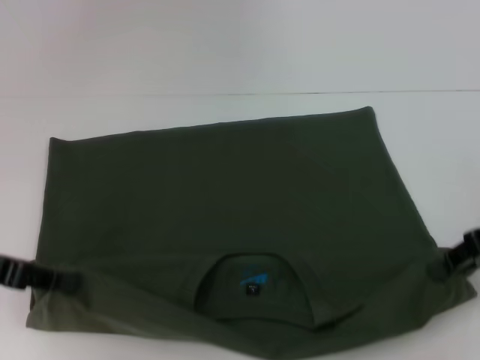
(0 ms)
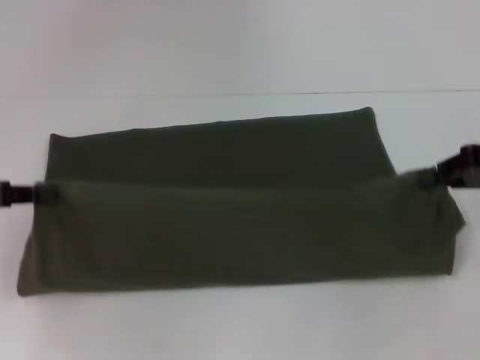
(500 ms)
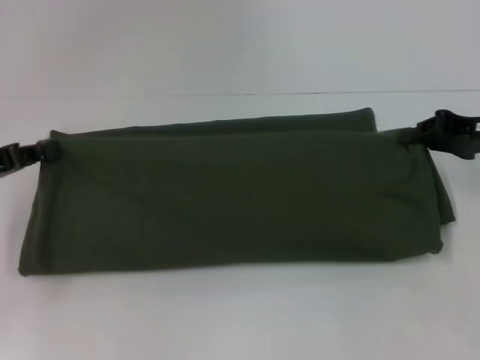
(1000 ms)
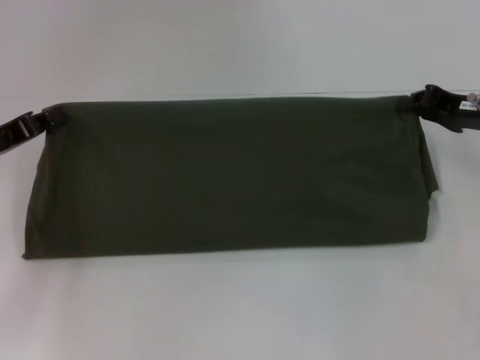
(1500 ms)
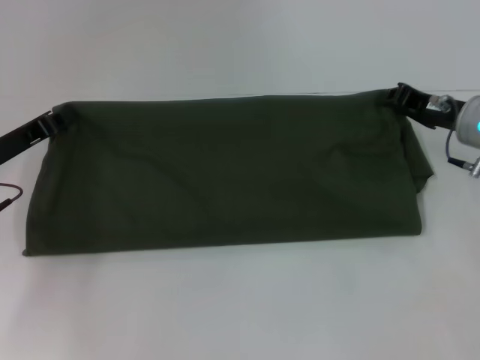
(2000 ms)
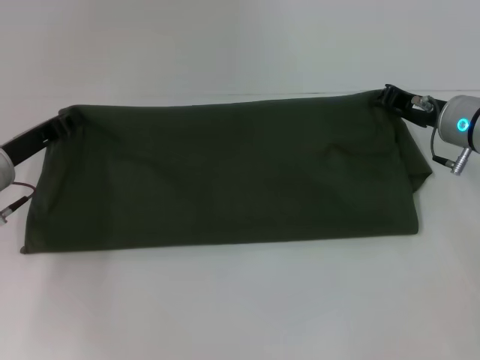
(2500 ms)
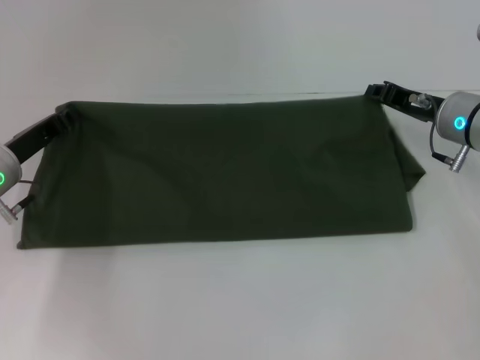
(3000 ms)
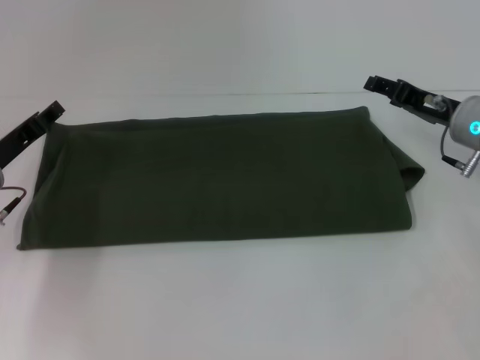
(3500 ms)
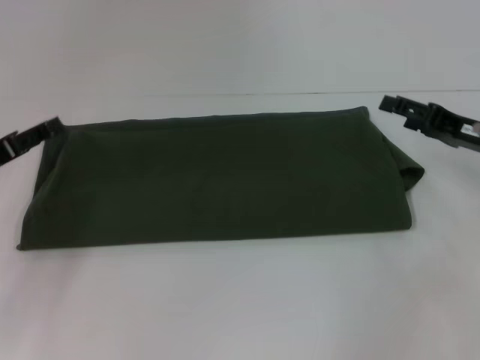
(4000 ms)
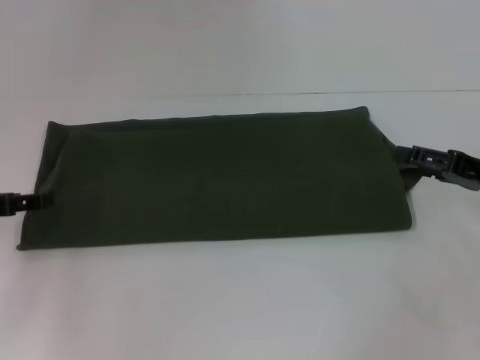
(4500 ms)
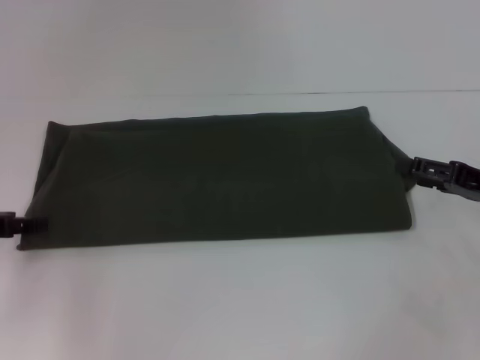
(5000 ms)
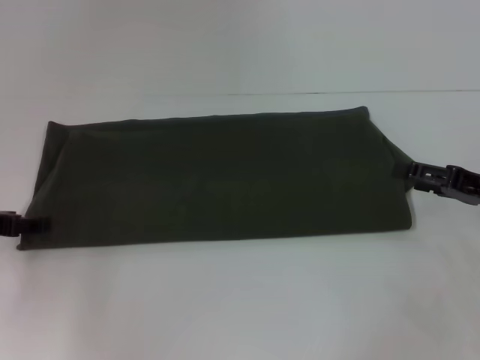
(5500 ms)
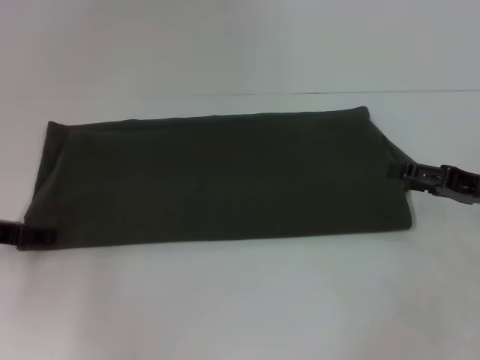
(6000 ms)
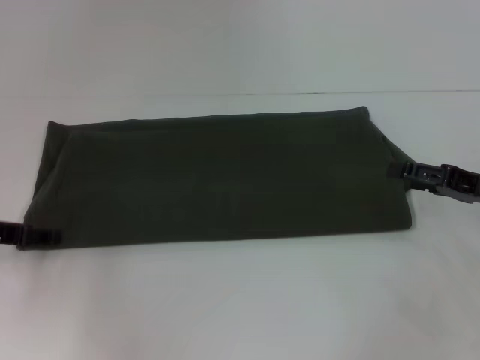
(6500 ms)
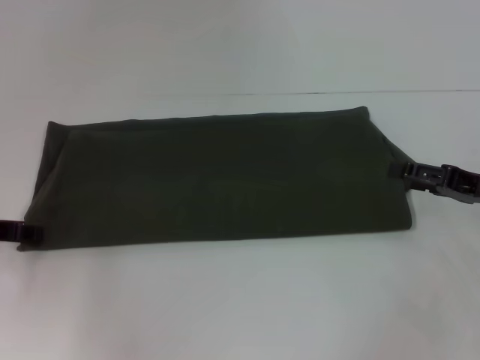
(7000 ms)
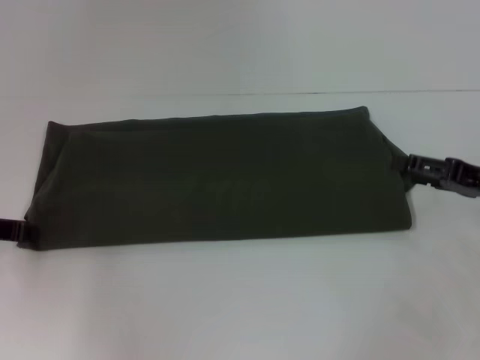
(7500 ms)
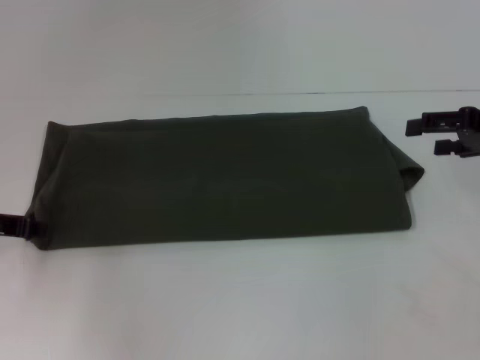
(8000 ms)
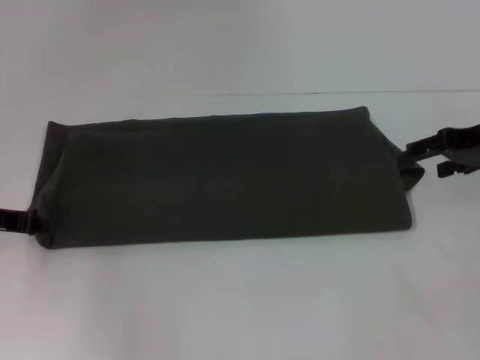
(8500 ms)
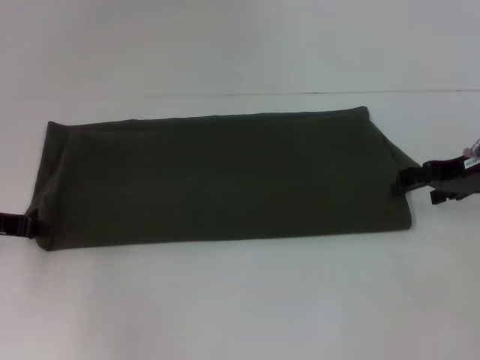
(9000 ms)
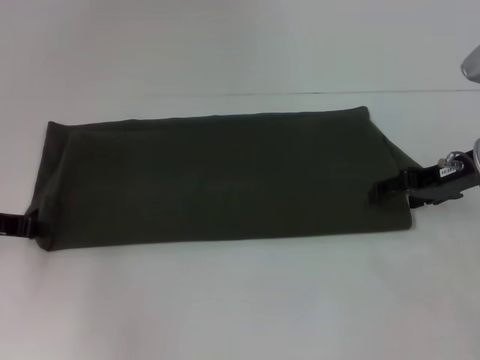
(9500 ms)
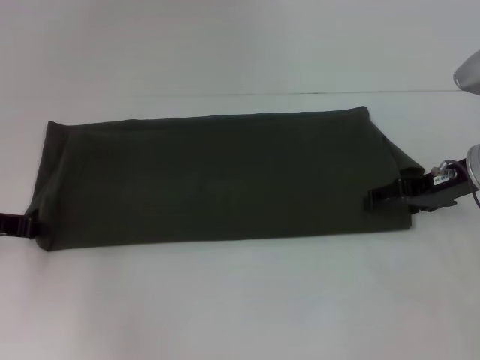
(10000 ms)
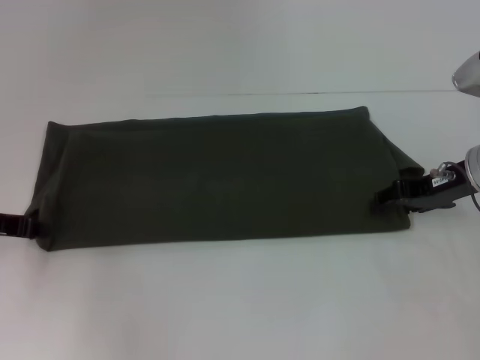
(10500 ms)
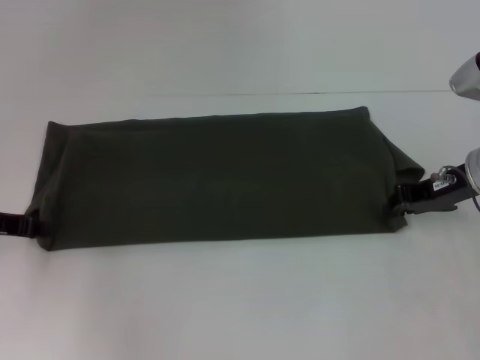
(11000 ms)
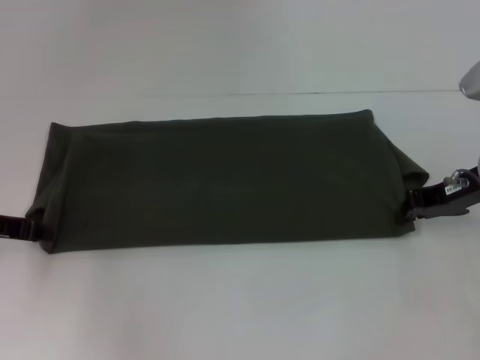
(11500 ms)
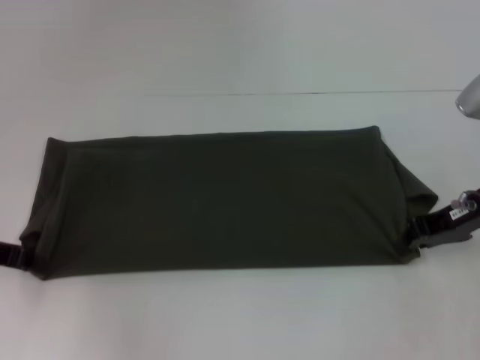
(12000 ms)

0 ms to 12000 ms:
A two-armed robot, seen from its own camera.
Step, 0 ms to 3000 ms: Fold the clothes with your right hand.
0 ms to 2000 ms: The left gripper travels forward and downward by approximately 10 cm; the right gripper is displaced forward and to the left by approximately 10 cm.
2000 ms to 4000 ms: The right gripper ends up some 5 cm from where it was, and opens up; the left gripper opens up.
4000 ms to 6000 ms: The right gripper moves some 5 cm.
6000 ms to 8000 ms: The right gripper moves upward, roughly 10 cm.
8000 ms to 10000 ms: The right gripper heads to the left, covering approximately 5 cm.
10000 ms to 12000 ms: The right gripper closes up.

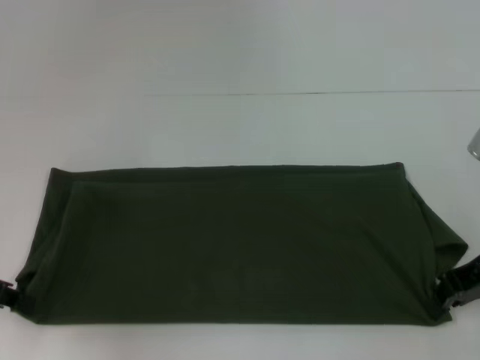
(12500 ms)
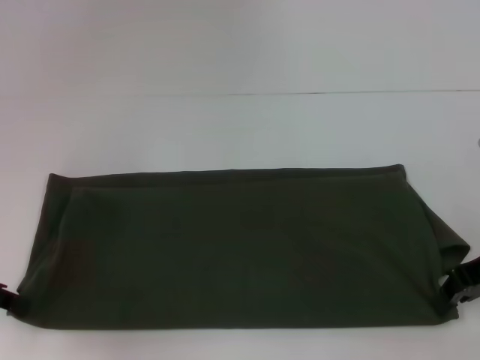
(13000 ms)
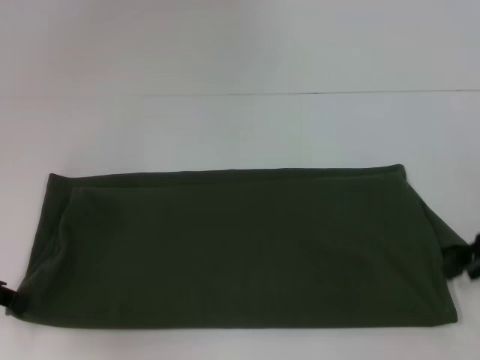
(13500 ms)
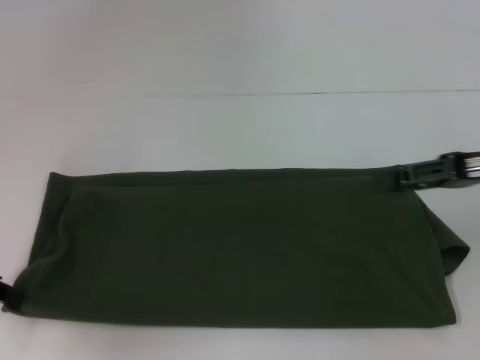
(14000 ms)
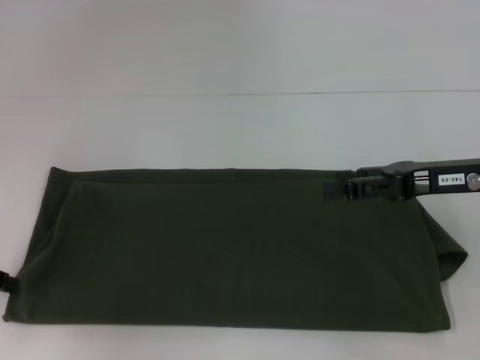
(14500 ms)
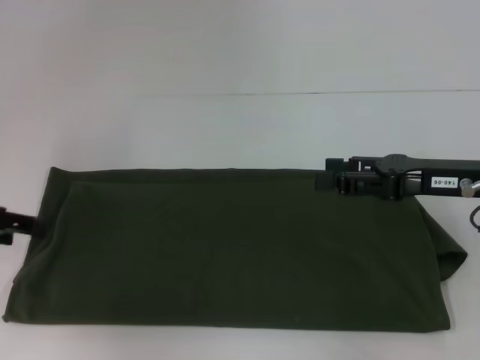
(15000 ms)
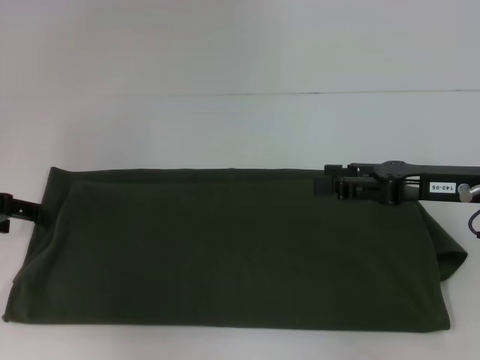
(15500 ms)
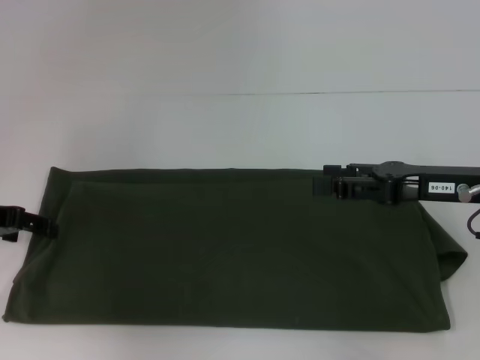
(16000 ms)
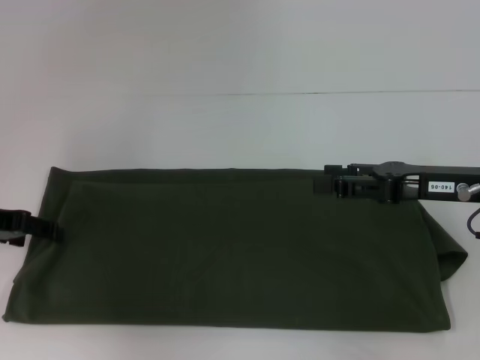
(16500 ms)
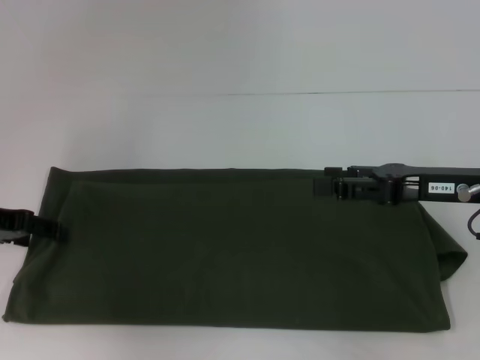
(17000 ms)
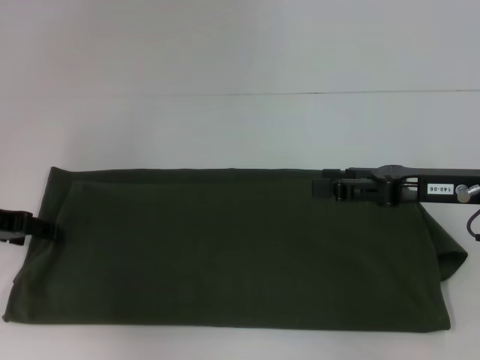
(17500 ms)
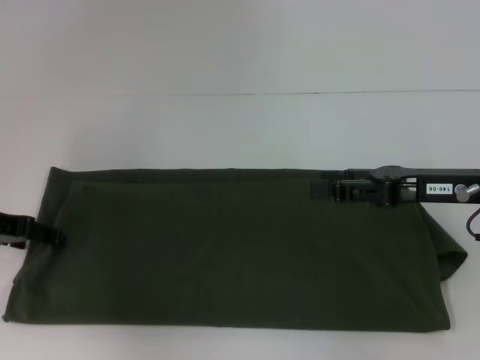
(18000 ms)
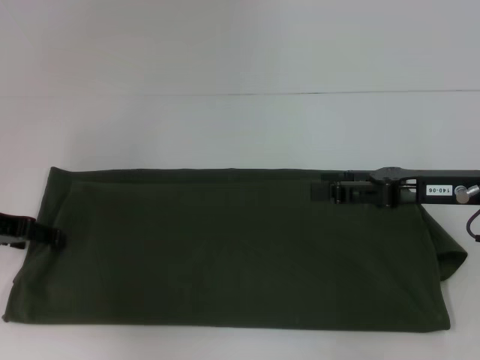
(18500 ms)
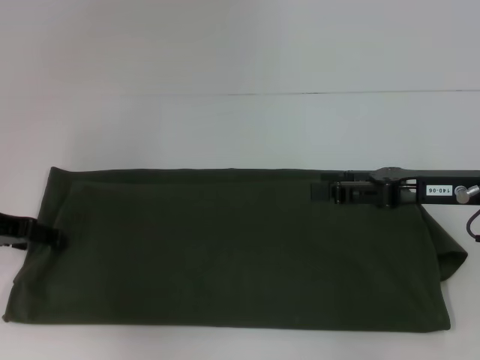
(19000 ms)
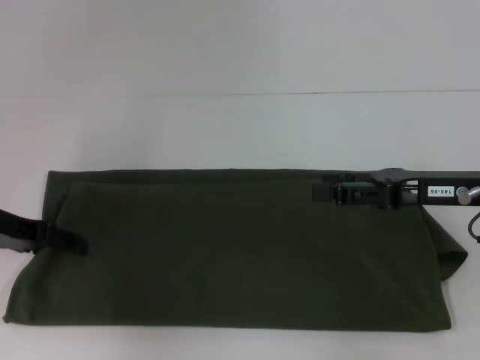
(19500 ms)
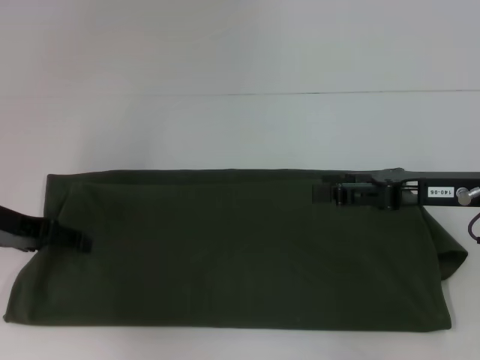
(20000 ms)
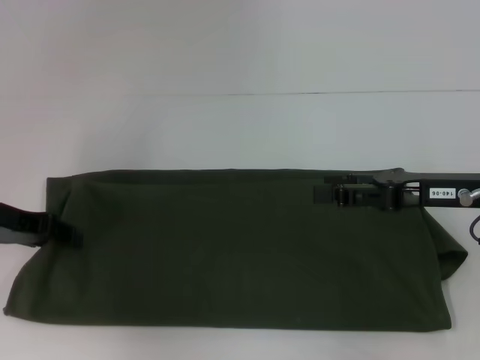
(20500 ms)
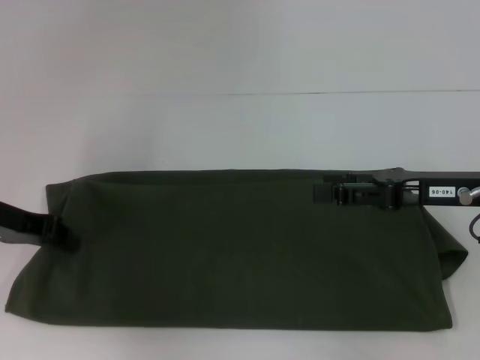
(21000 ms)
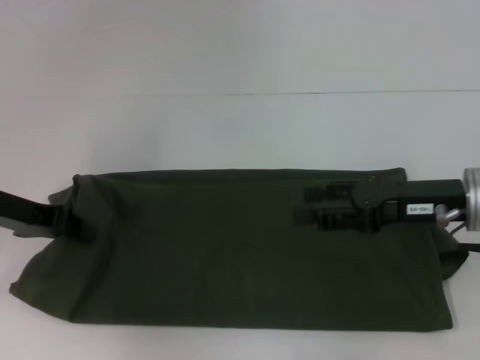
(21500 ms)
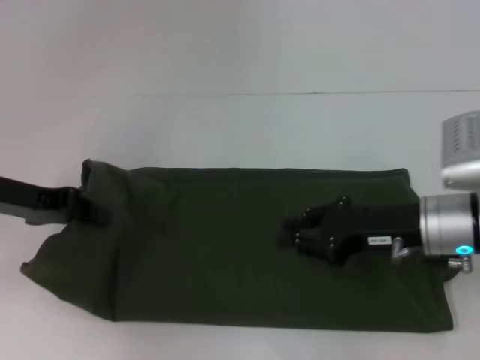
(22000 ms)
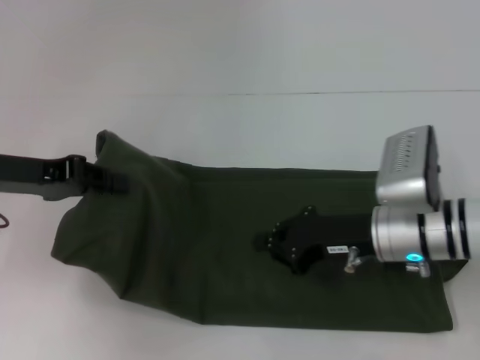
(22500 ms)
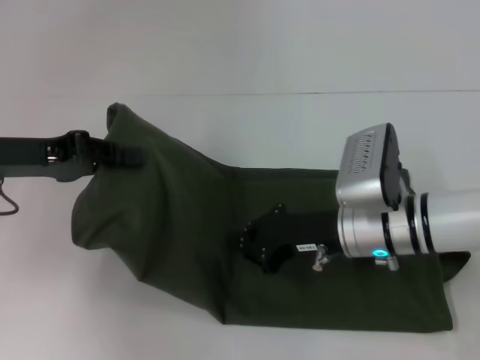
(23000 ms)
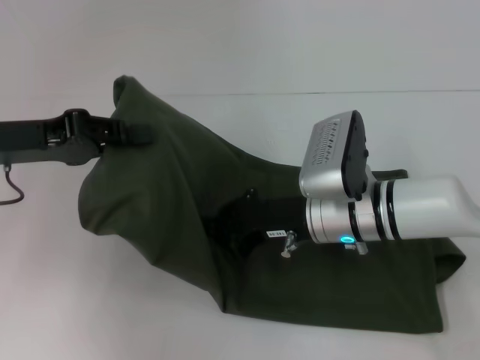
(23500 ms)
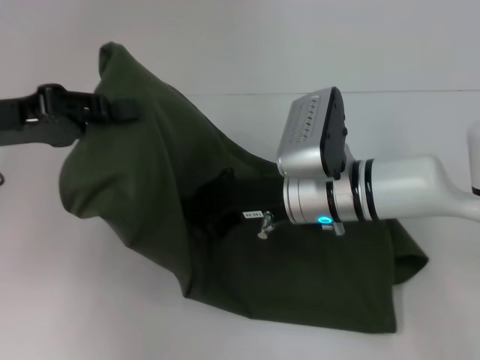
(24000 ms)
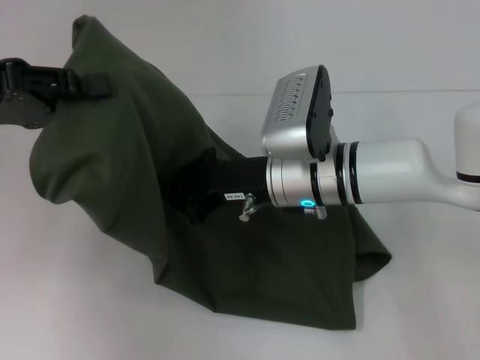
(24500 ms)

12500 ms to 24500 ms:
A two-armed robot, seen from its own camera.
12500 ms to 14500 ms: The right gripper opens.
14500 ms to 16500 ms: The left gripper goes approximately 5 cm forward, and opens its fingers.
16500 ms to 18500 ms: Neither gripper changes place.
18500 ms to 20500 ms: The grippers move only a little.
20500 ms to 22500 ms: The left gripper closes up; the right gripper goes roughly 10 cm to the left and downward, and closes its fingers.
22500 ms to 24500 ms: The right gripper goes some 10 cm to the left, while the left gripper goes some 5 cm upward.

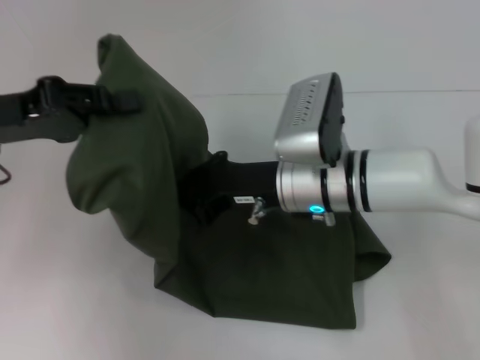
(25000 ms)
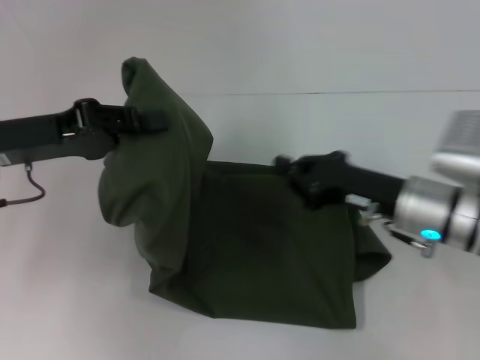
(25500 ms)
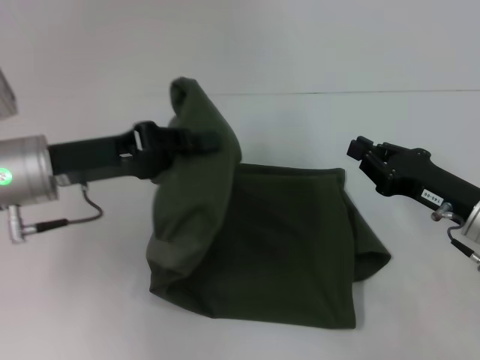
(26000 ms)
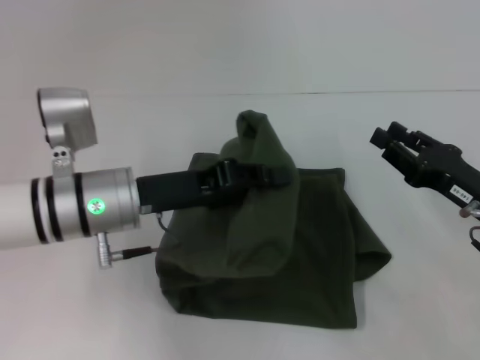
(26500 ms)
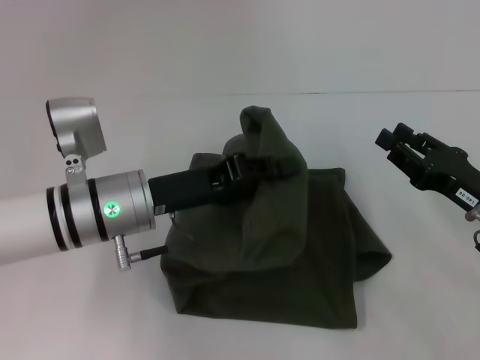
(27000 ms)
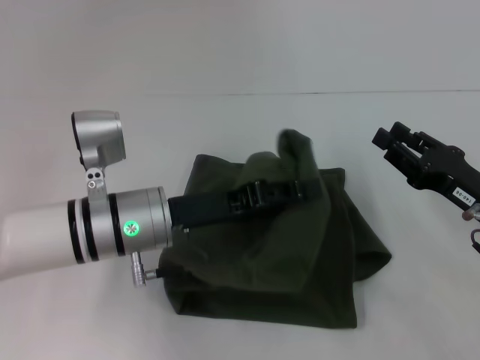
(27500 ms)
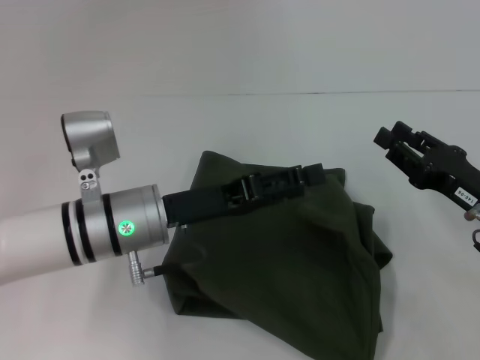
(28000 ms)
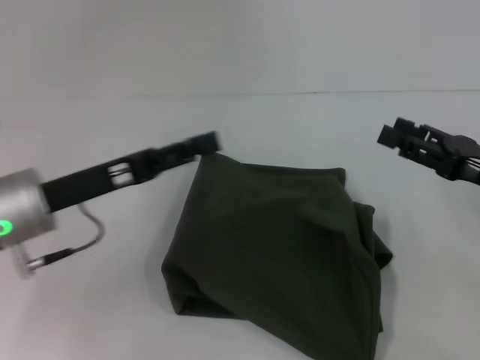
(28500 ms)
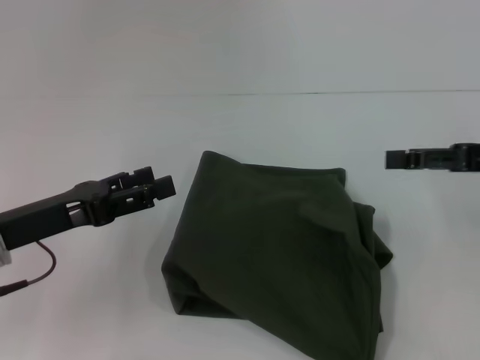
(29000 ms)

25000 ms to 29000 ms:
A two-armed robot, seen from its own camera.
25000 ms to 27000 ms: The right gripper goes approximately 20 cm to the right, and opens. The left gripper shifts some 15 cm to the right and downward.
27000 ms to 29000 ms: The left gripper moves to the left, about 10 cm, and opens its fingers. Meanwhile the right gripper goes about 10 cm upward, and opens.
